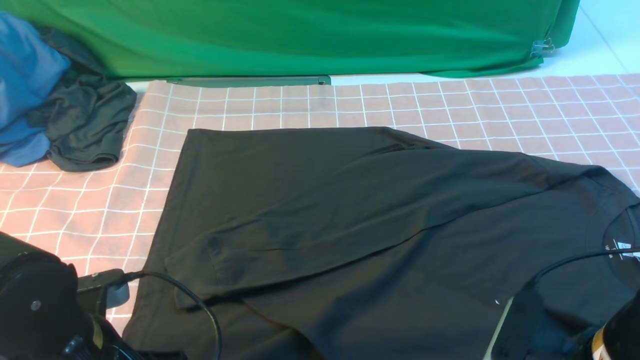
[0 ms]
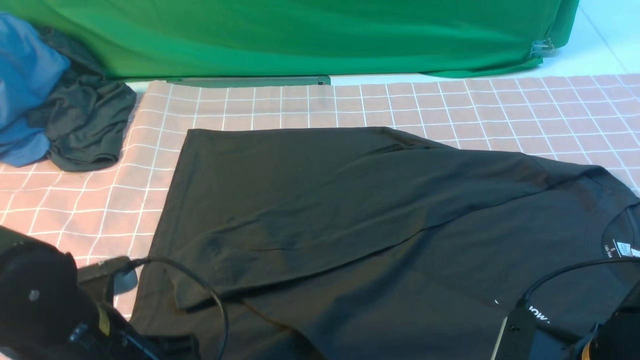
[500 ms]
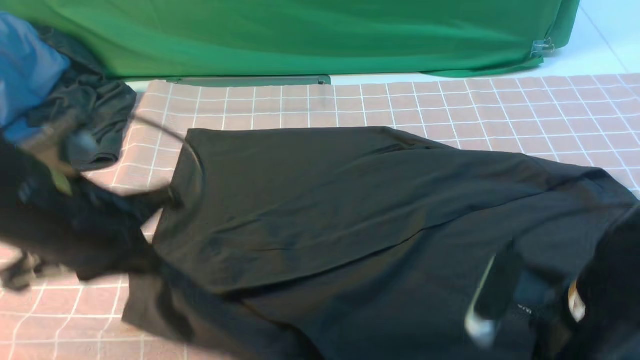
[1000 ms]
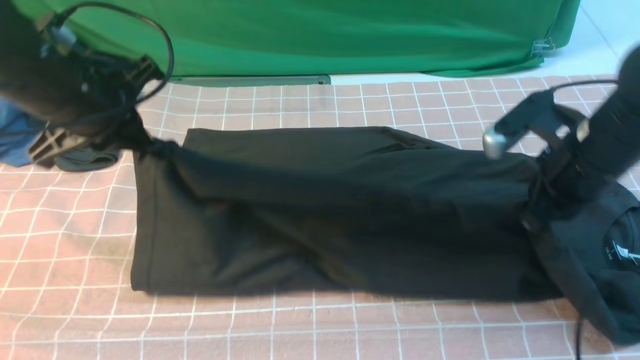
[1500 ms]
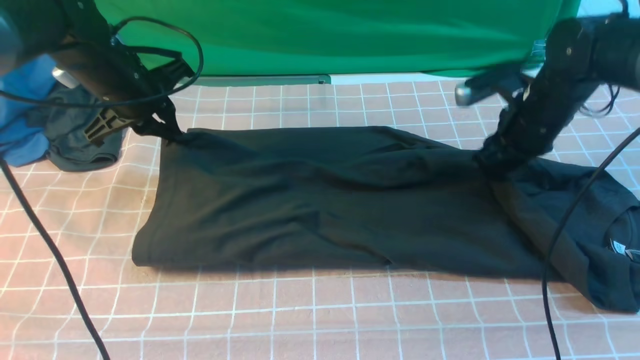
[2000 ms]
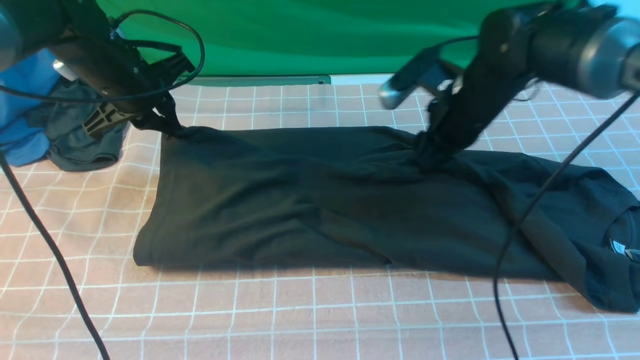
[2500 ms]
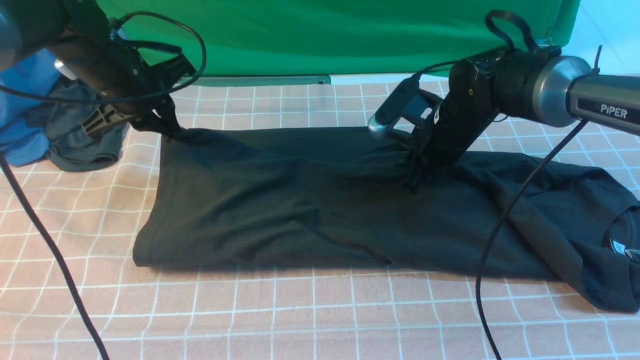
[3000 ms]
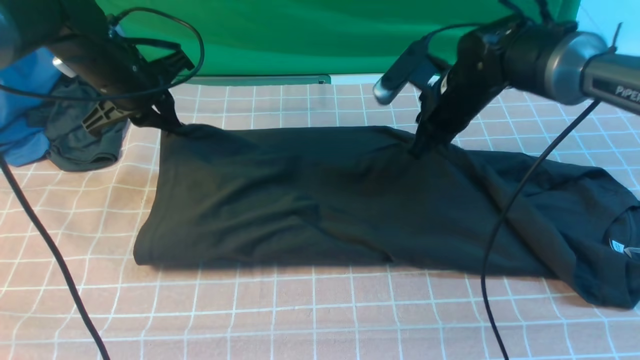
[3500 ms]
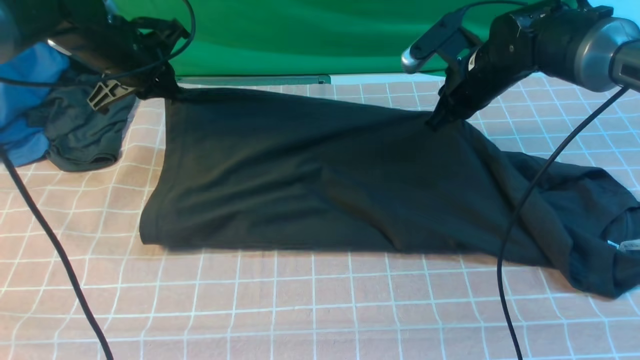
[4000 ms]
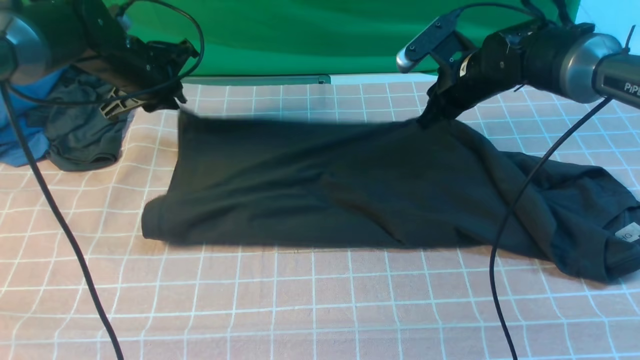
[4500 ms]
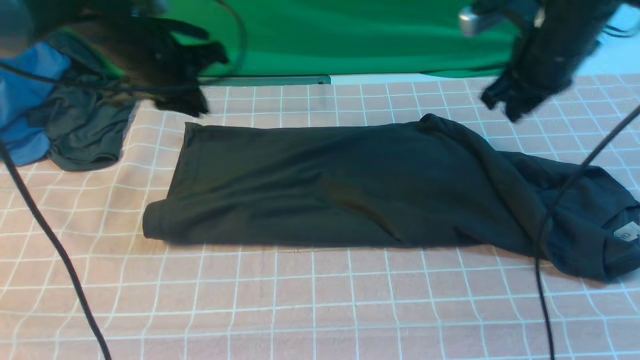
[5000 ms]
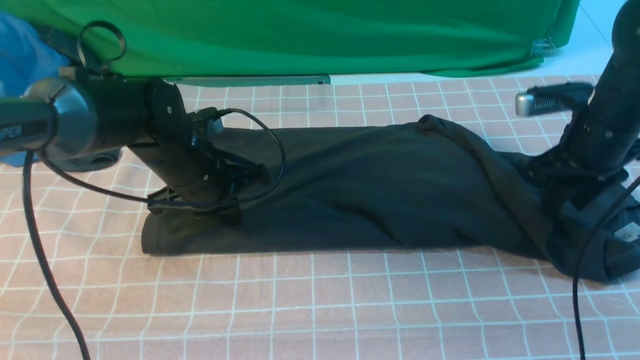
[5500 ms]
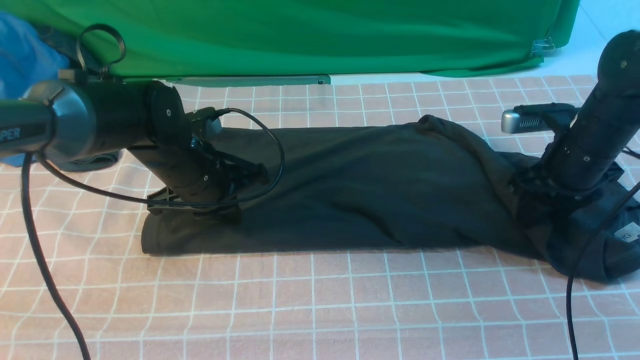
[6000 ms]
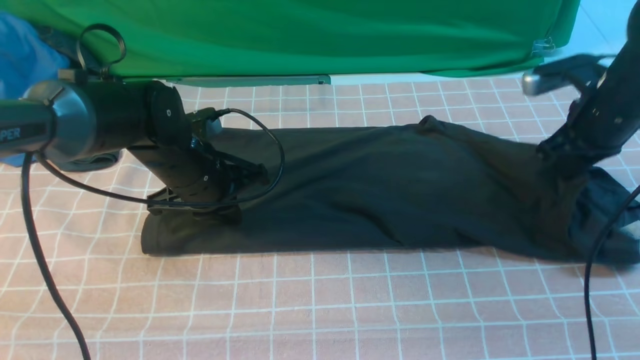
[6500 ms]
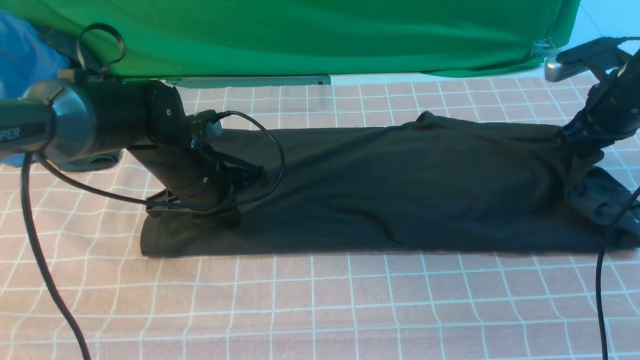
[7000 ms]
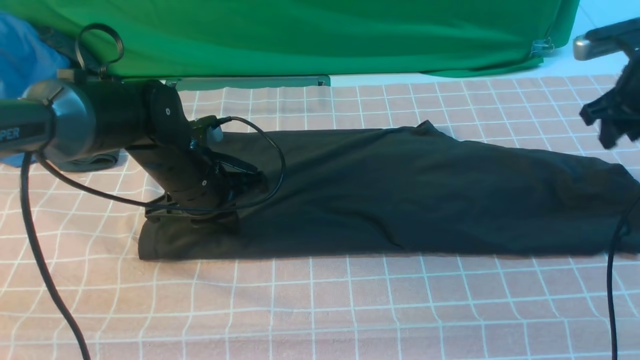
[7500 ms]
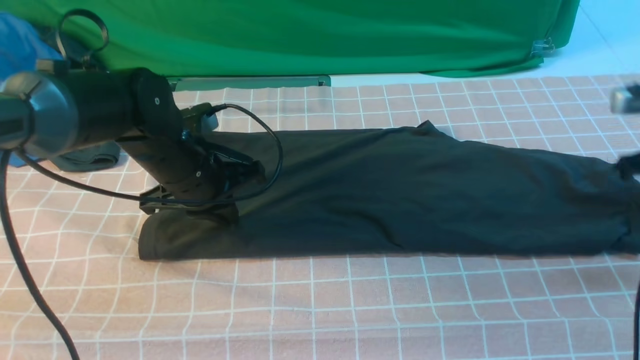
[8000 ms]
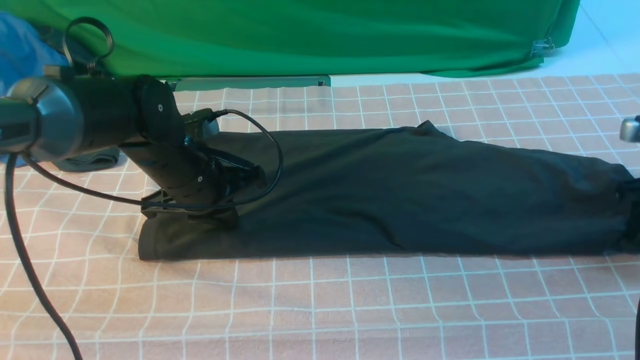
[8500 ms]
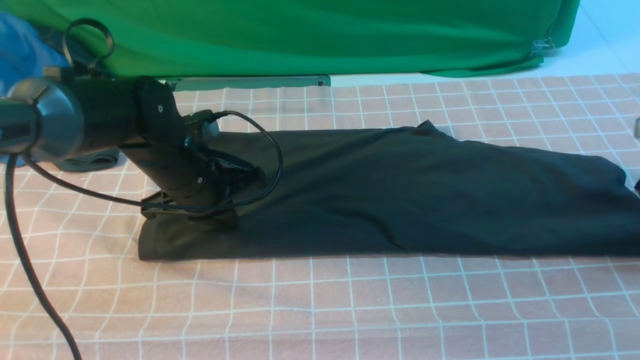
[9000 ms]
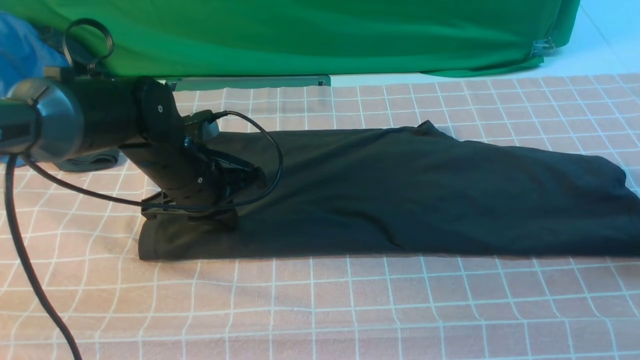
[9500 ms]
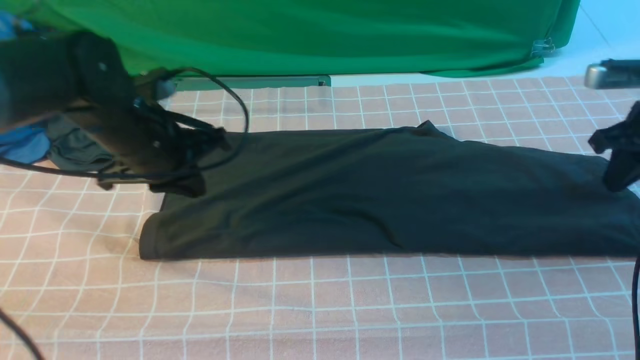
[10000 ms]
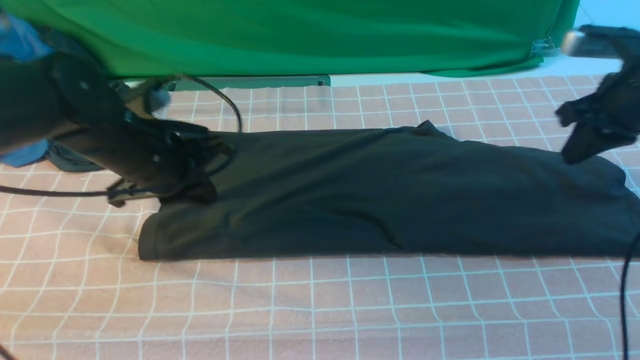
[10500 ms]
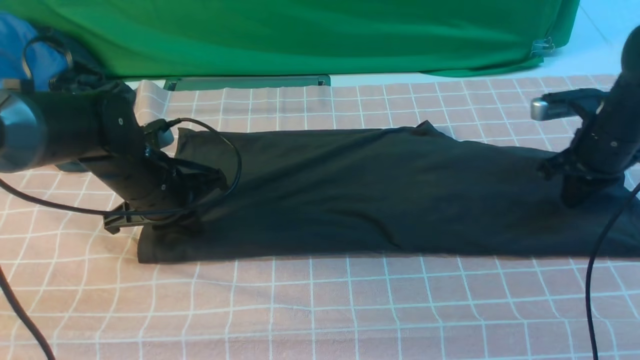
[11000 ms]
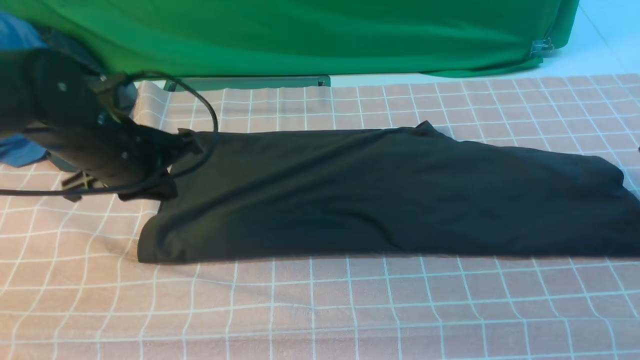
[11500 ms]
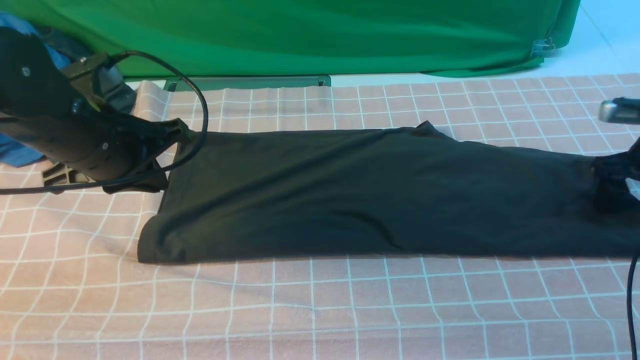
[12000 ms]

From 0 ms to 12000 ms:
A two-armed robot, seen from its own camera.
Step, from 1500 ms to 4500 ms: use both arms to drag the lower edge of the fabric forward and fold it over the upper edge.
From 0 ms to 2000 ms: The two grippers go roughly 30 cm forward. The right gripper closes up.
From 2000 ms to 4000 ms: The right gripper heads forward, covering approximately 5 cm, and closes up.
From 4000 ms to 6000 ms: The left gripper goes roughly 15 cm backward, to the right and downward, and opens, then closes again. The right gripper is displaced to the right and backward by approximately 15 cm, and opens up.
From 6000 ms to 8000 ms: The right gripper travels to the right by approximately 10 cm, and closes.
From 8000 ms to 10000 ms: The right gripper opens, then closes again; the left gripper ends up some 5 cm from where it was.
From 10000 ms to 12000 ms: The left gripper shifts by some 5 cm, while the right gripper shifts roughly 10 cm downward, and opens.

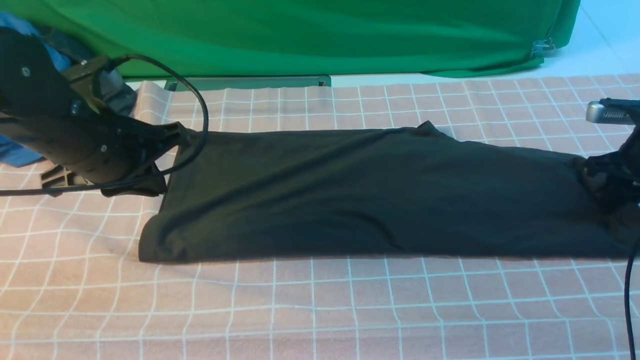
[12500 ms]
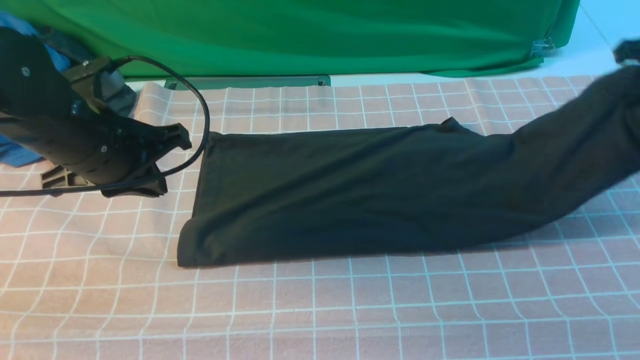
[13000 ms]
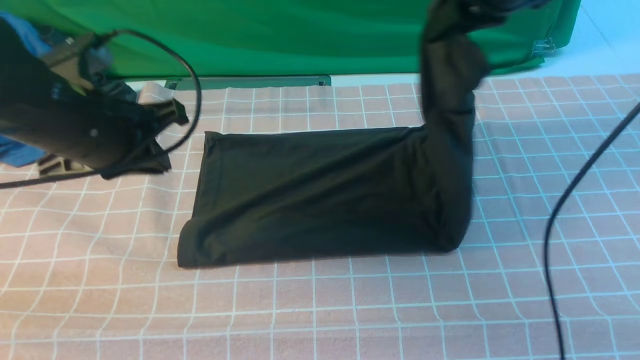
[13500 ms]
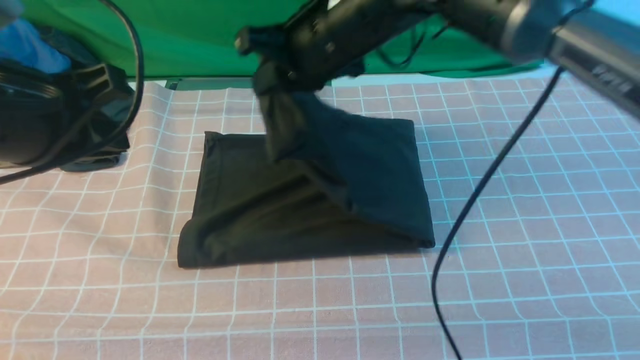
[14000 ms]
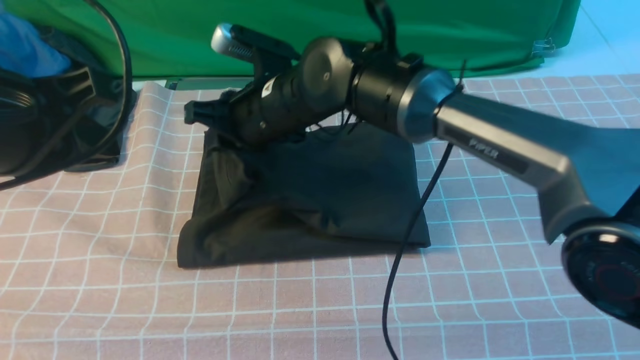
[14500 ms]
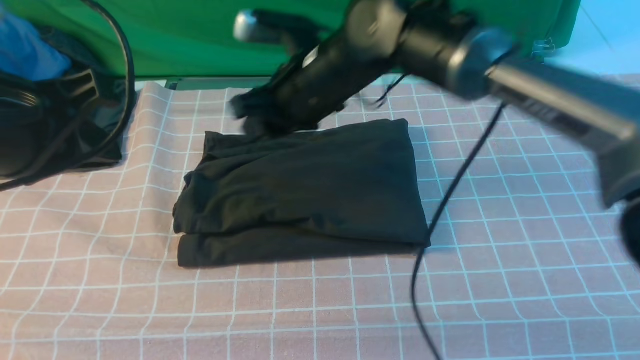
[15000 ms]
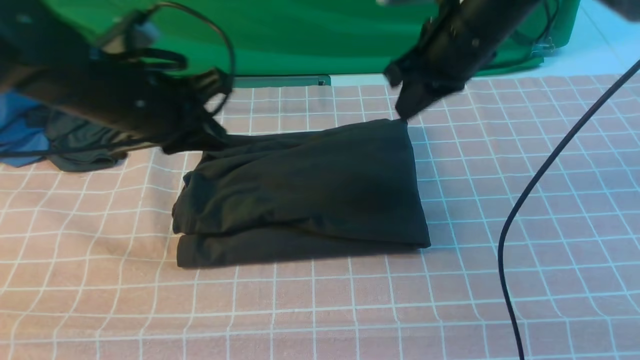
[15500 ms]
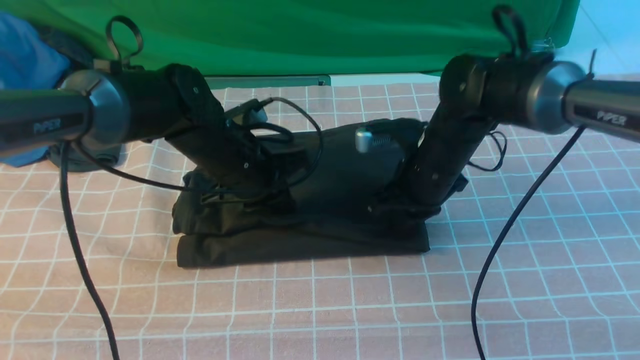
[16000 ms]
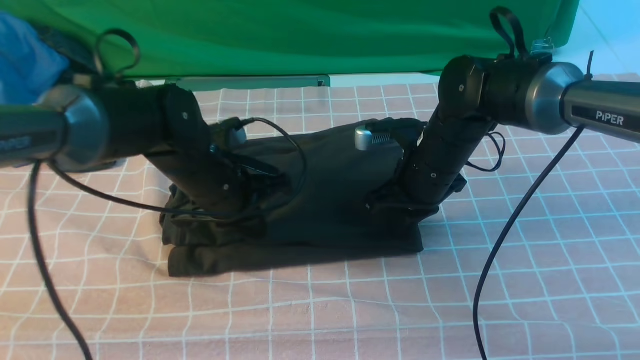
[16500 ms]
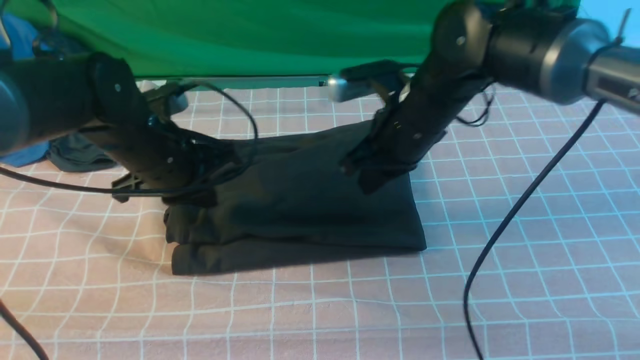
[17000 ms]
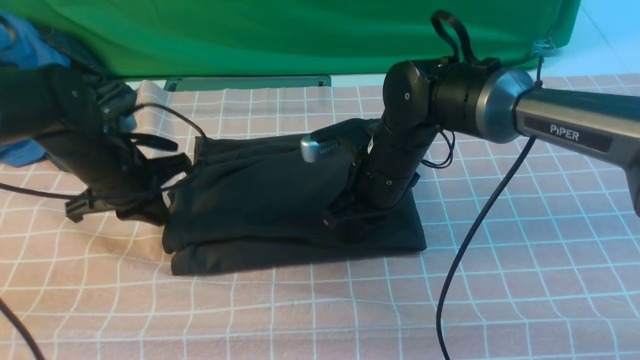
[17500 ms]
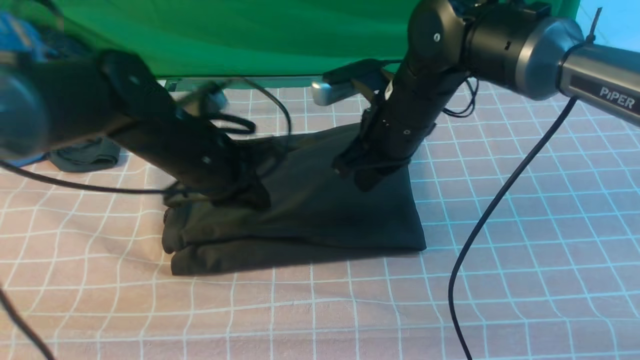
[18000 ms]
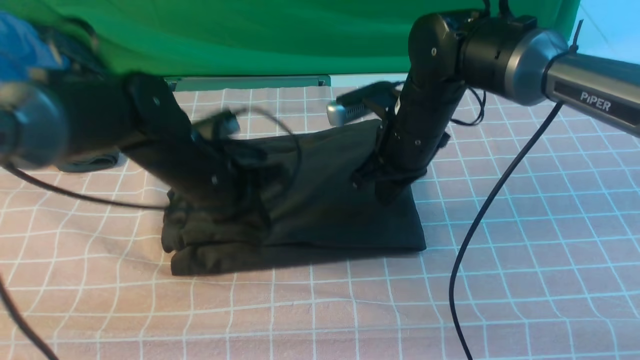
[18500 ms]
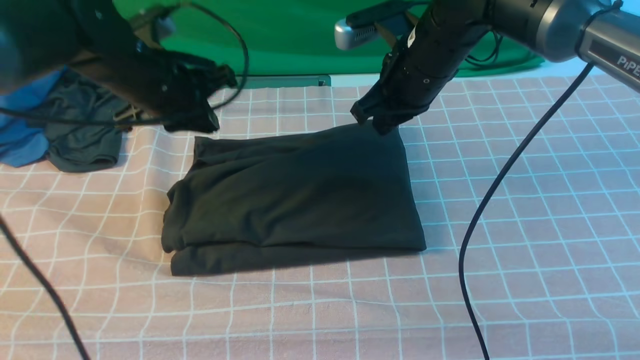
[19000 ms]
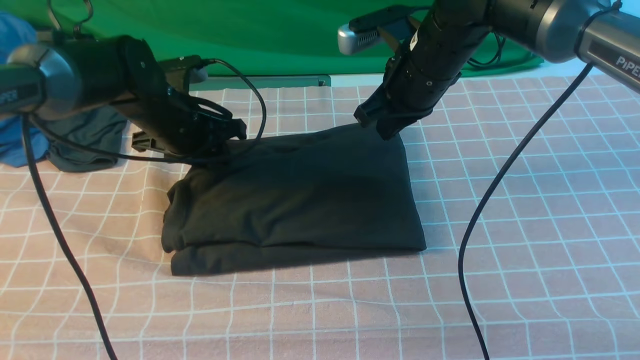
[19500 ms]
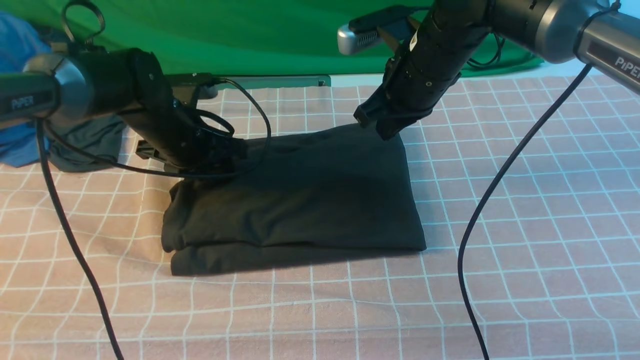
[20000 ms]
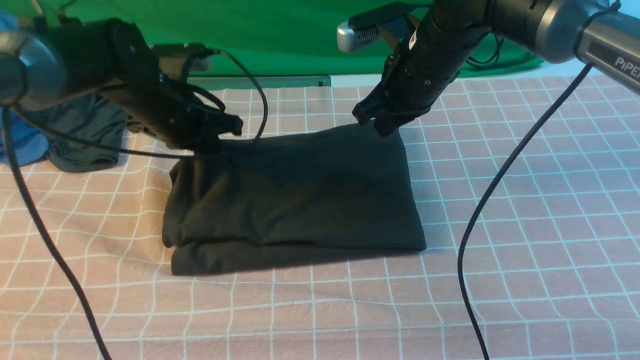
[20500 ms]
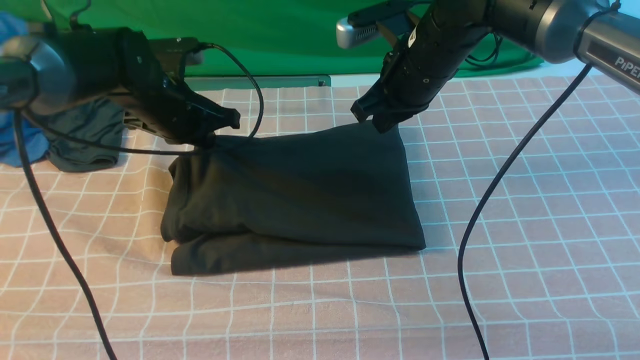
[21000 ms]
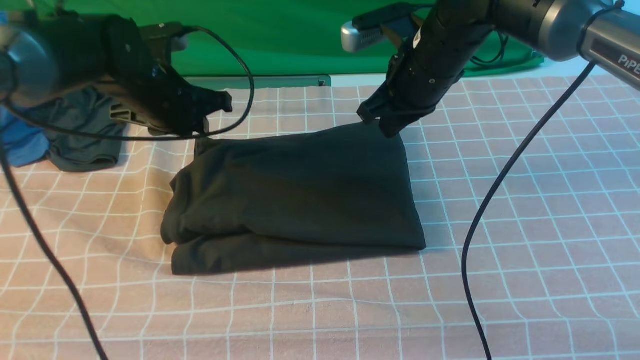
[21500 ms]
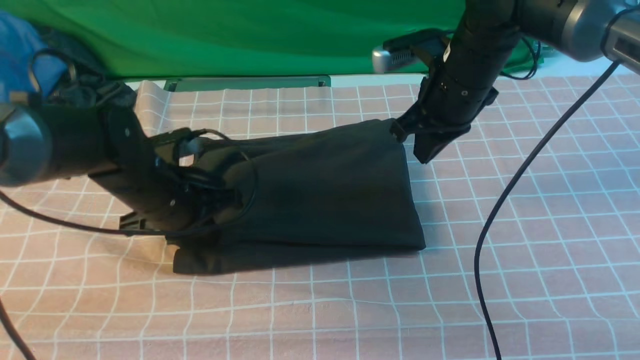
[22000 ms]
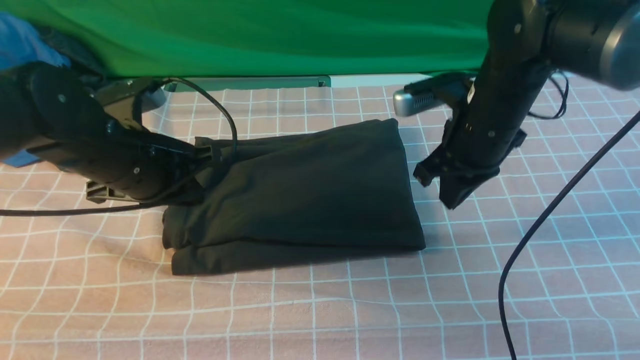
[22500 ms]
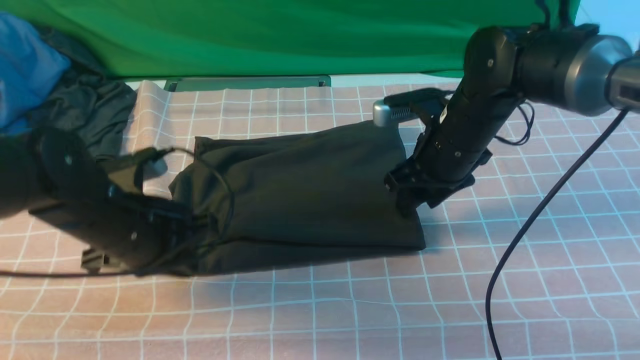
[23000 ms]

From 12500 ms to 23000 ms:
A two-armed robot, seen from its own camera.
Step, from 13000 ms to 14500 ms: use the right arm to drag the right edge of the fabric to the left and folds it over the left edge.
From 12500 ms to 14500 ms: The left gripper moves upward and backward, about 15 cm, while the right gripper shifts approximately 50 cm to the left.
From 14500 ms to 16500 ms: The right gripper moves to the right and downward, some 20 cm, and closes its fingers; the left gripper shifts about 25 cm downward, forward and to the right.
From 16500 ms to 19000 ms: The left gripper swings left and right, approximately 10 cm each way, with 2 reversals, while the right gripper goes some 10 cm upward.
From 19000 ms to 21000 ms: The left gripper shifts by approximately 5 cm, and opens, then closes once more.
From 21000 ms to 23000 ms: The left gripper moves backward, about 15 cm; the right gripper travels downward by roughly 5 cm, and opens up.
